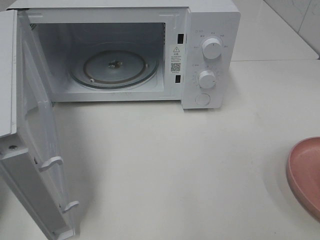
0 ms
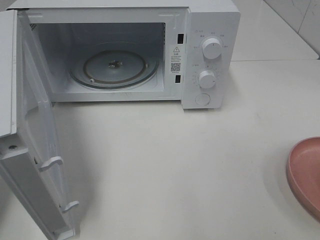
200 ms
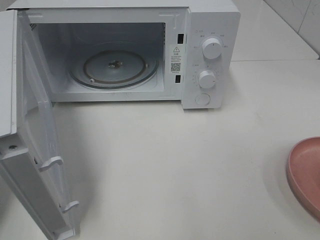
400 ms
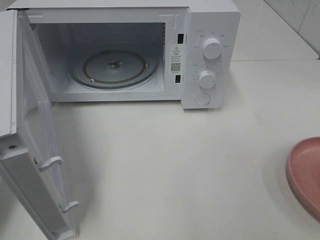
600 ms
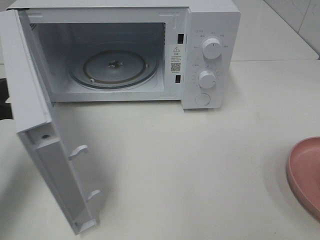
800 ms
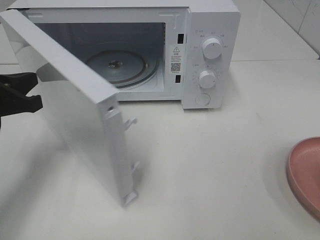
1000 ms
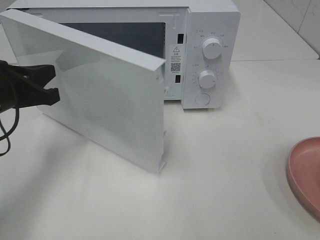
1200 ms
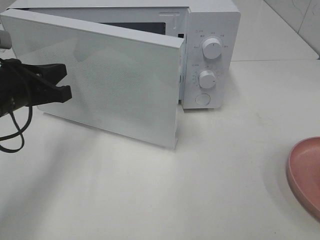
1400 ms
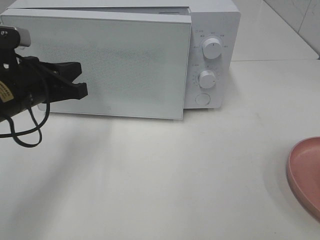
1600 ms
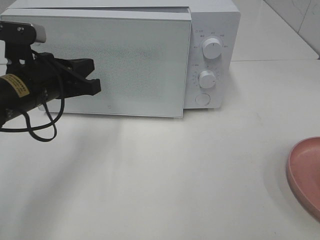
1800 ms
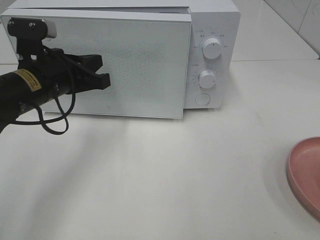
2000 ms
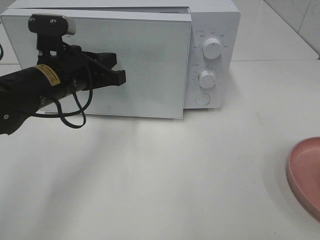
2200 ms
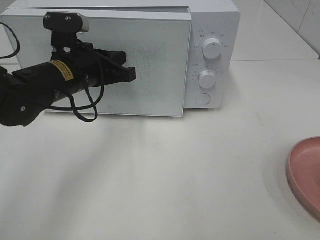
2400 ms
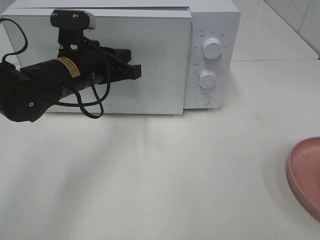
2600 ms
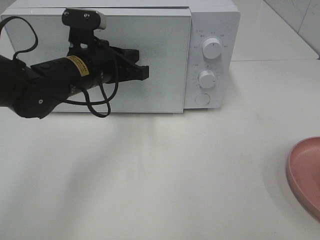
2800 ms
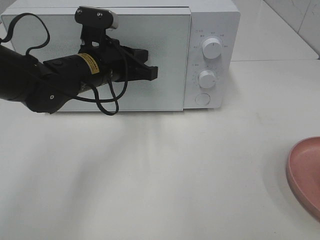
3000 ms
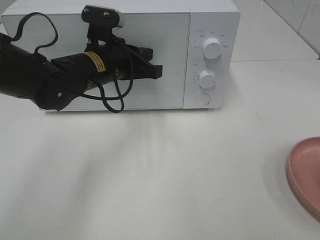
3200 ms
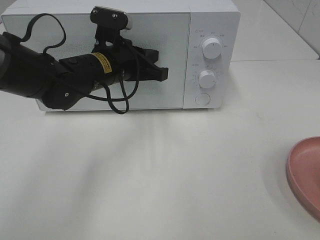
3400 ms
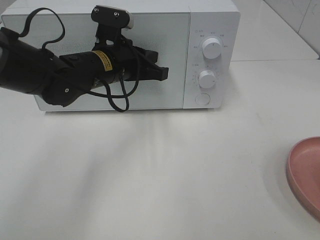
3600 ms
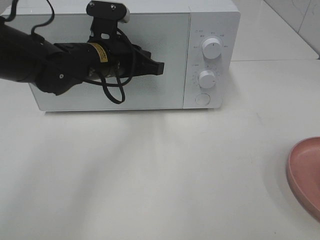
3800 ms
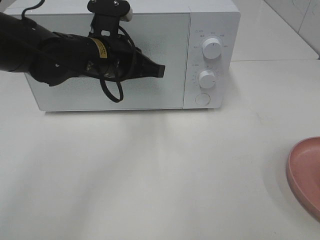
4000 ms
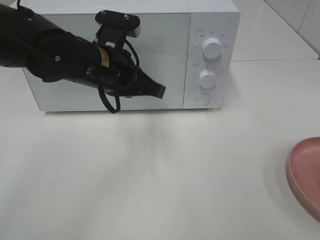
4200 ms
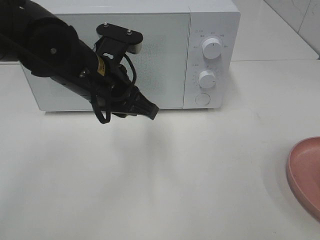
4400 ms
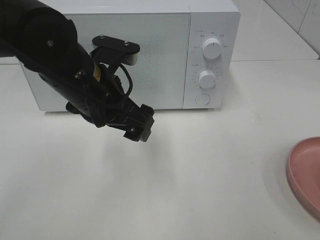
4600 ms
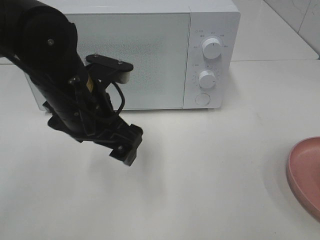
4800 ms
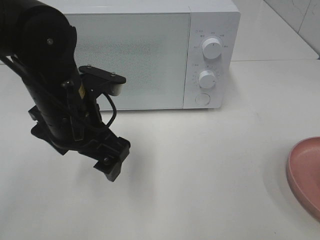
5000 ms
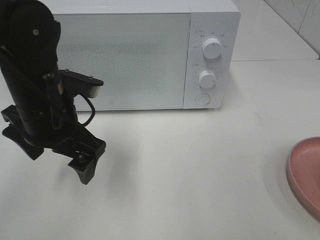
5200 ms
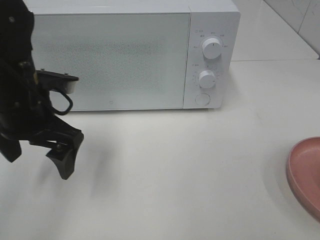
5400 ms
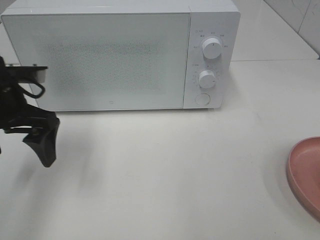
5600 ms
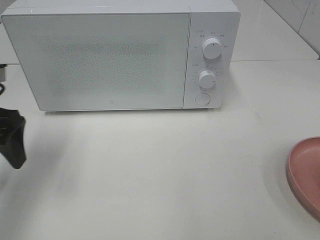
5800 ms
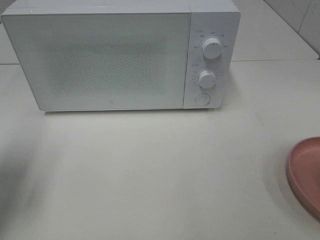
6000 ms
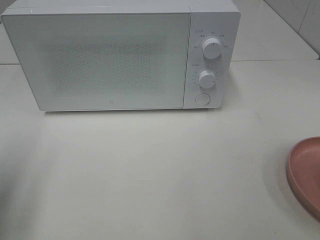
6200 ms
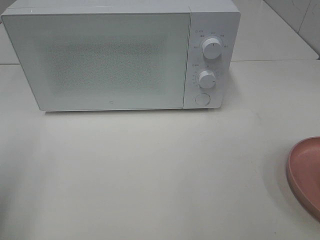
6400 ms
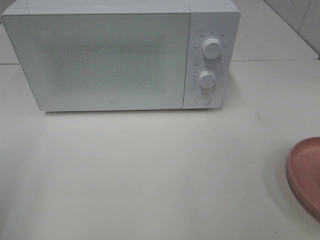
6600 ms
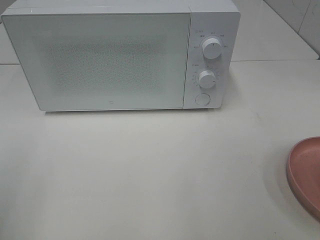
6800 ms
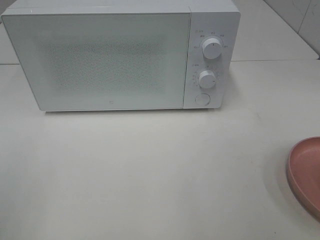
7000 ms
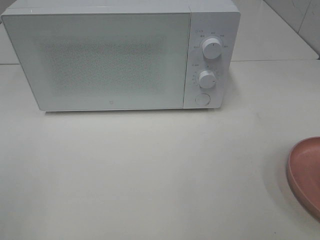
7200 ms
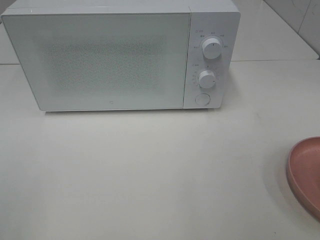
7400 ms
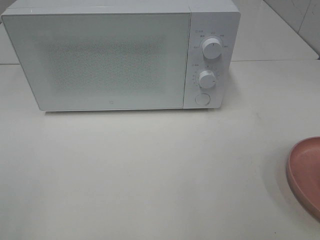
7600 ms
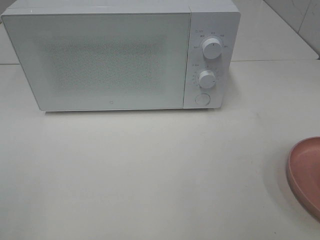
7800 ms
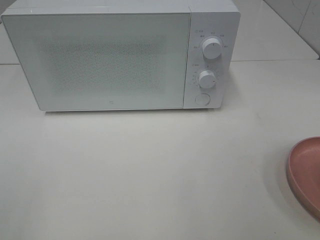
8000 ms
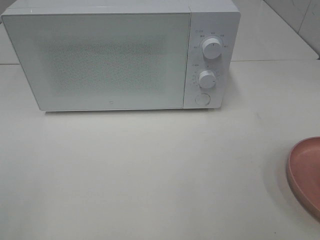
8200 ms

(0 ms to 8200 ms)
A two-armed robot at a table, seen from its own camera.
Task of the whole recording: Heat the burger.
Step, 0 ms - 3800 ms: Left hand: close the microwave door.
0 ms - 1600 ms: The left gripper moves to the right and forward, approximately 15 cm.
1600 ms - 3200 ms: The left gripper moves to the right and forward, about 15 cm.
3200 ms - 5000 ms: The left gripper heads backward, covering about 10 cm, and opens.
5000 ms - 6600 ms: The left gripper heads to the left and backward, covering some 25 cm.

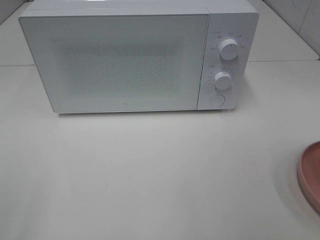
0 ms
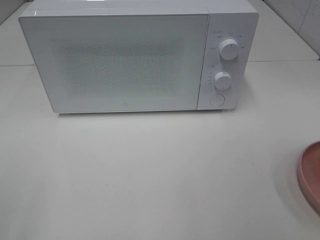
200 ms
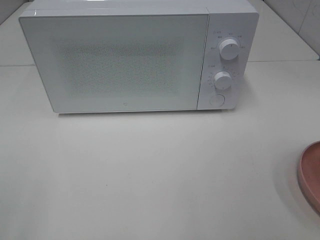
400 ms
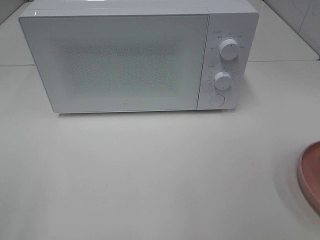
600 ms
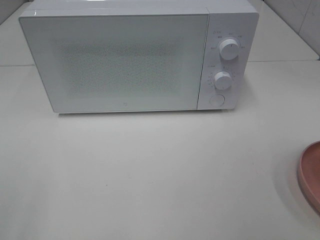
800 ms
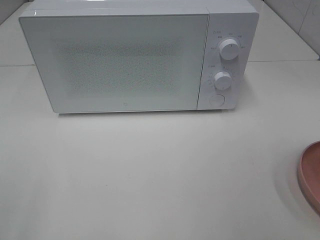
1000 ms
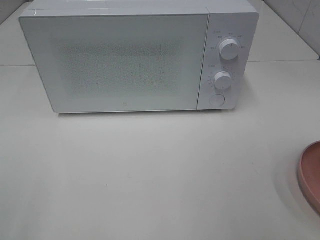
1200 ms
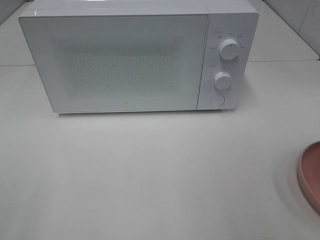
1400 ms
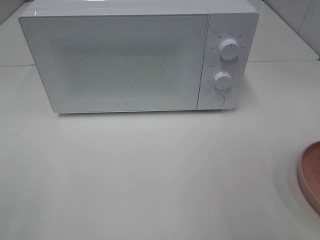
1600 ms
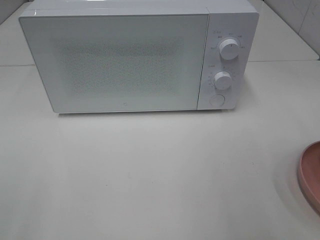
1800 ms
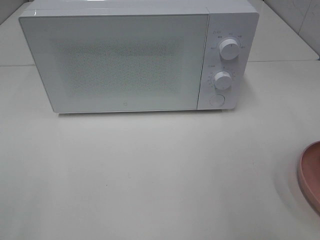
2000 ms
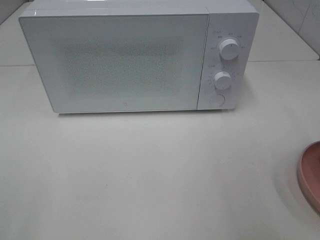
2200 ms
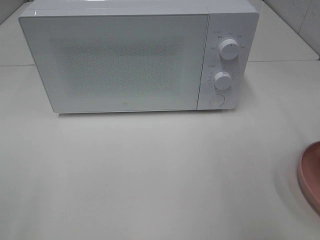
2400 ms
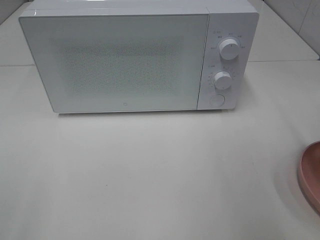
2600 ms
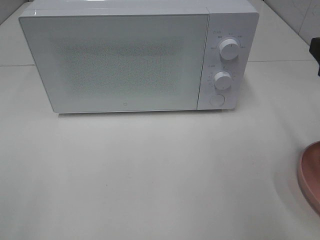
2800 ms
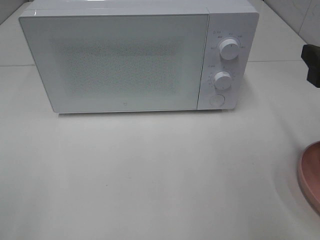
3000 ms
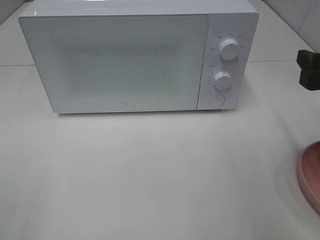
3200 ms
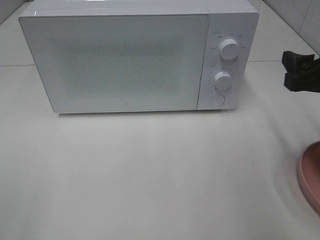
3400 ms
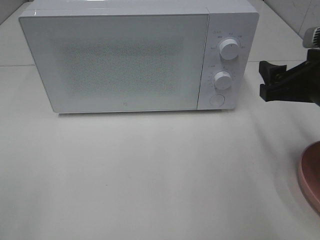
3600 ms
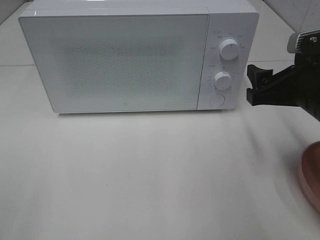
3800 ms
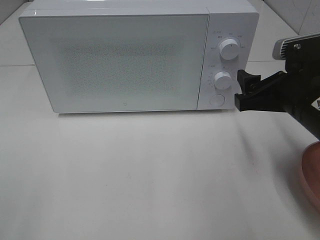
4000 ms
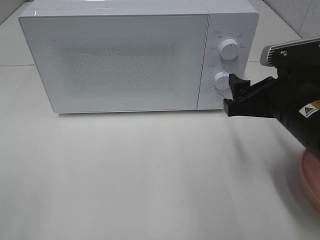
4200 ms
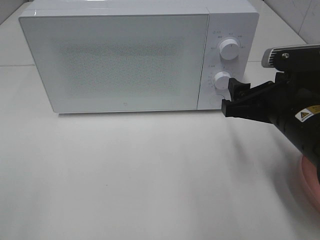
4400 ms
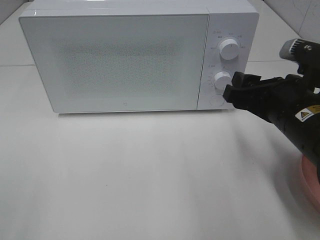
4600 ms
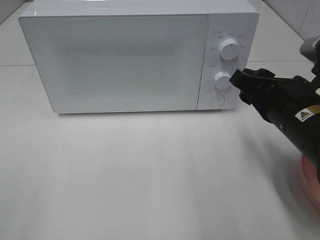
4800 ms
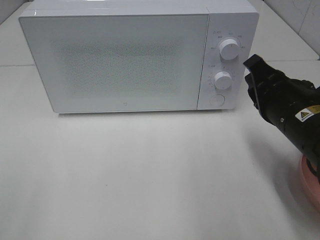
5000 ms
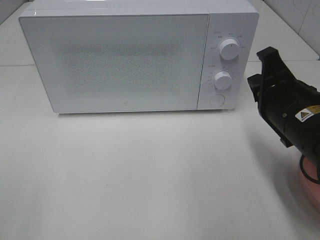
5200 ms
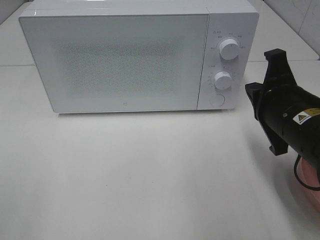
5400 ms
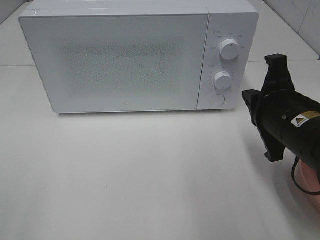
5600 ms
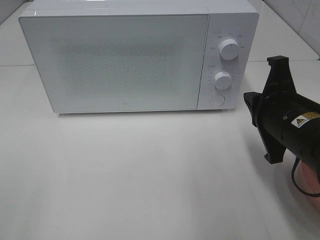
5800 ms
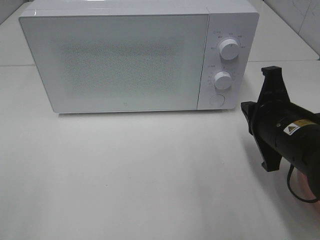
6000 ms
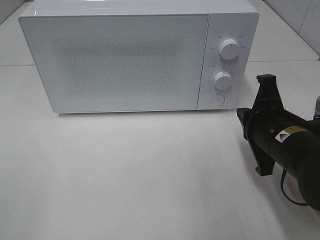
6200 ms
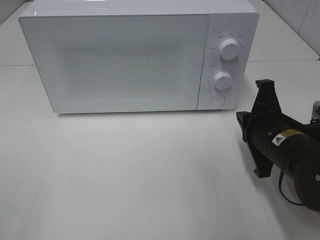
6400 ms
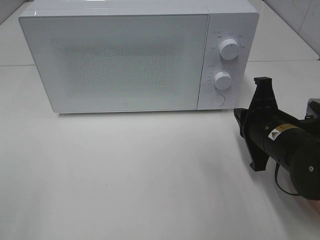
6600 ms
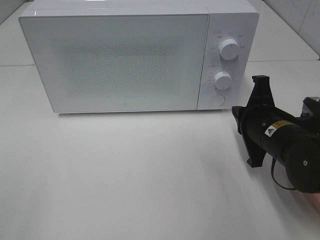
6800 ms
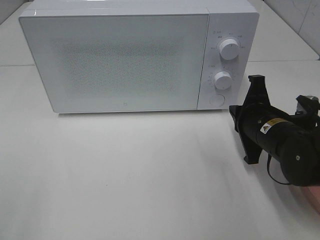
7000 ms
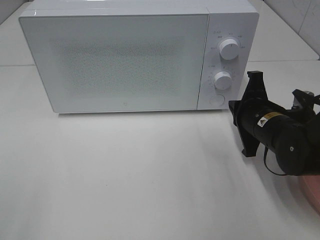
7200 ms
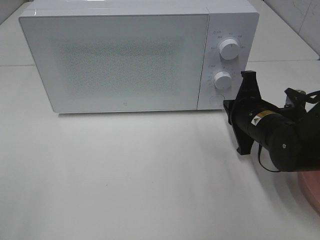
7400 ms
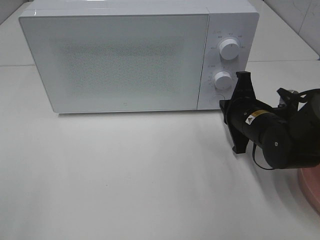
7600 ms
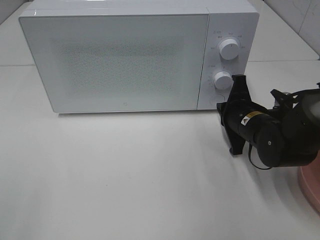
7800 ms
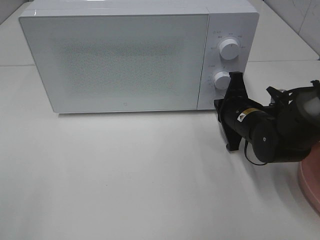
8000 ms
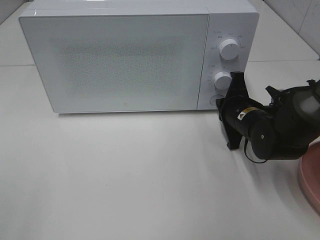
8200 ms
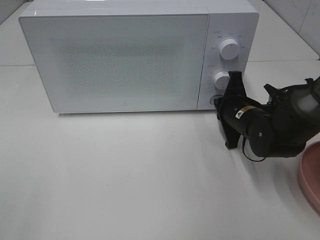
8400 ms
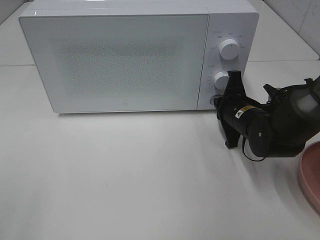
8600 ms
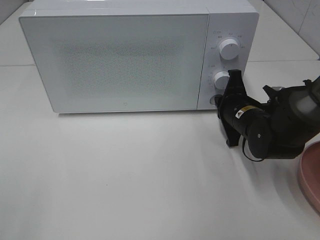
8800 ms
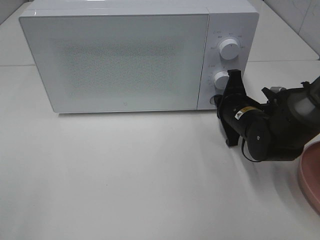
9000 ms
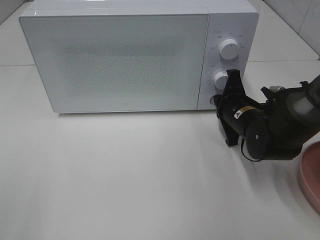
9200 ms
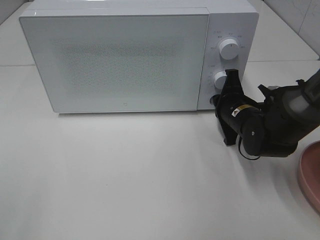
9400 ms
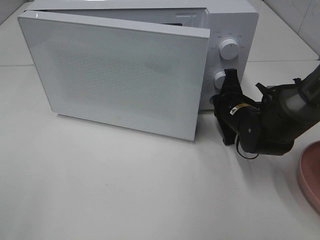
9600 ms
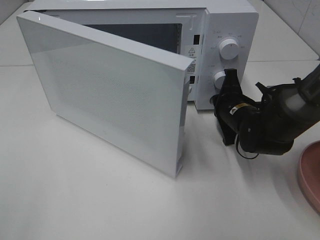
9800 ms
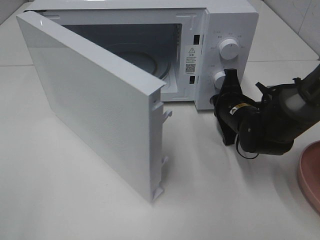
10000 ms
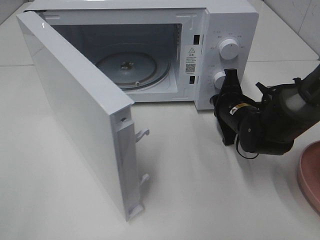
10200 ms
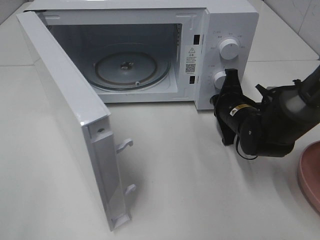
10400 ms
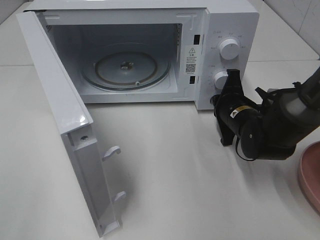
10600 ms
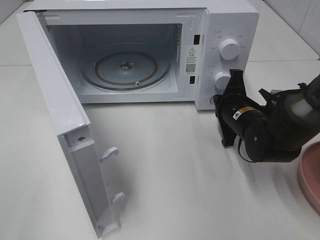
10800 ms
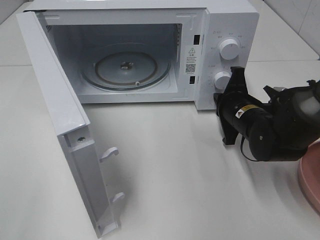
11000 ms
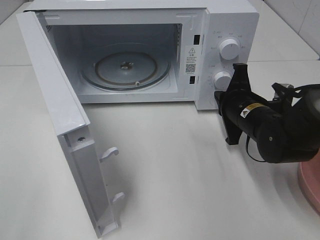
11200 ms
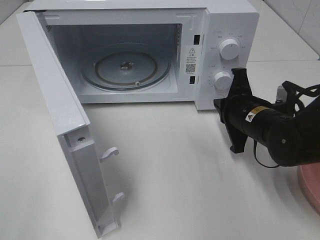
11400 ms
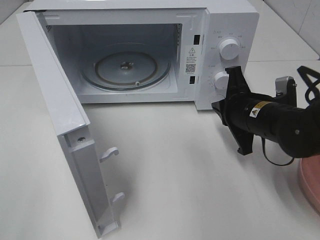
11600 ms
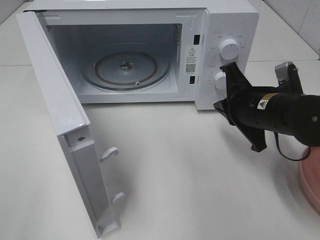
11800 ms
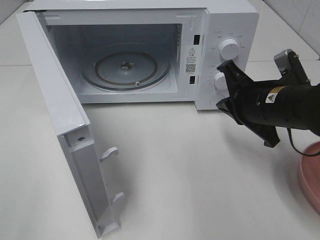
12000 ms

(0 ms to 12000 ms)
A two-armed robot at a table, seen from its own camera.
Task of the whole recording: Heat the burger.
Step, 0 ms - 11000 ms: Right hand: press the switch.
1600 ms - 3000 ms: The right gripper goes roughly 15 cm forward and downward.
3000 ms - 4400 ms: The right gripper heads to the left and downward, covering about 10 cm.
4400 ms - 6000 ms: The right gripper closes its fingers.
6000 ms - 7600 ms: The right gripper heads forward and downward, covering roughly 10 cm.
7600 ms - 9000 ms: The grippers stay close to where they were, moving slightly.
10400 ms - 12000 ms: The right gripper shifts some 10 cm upward and backward.

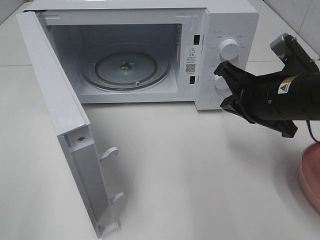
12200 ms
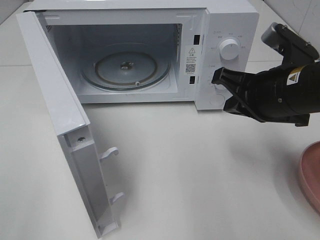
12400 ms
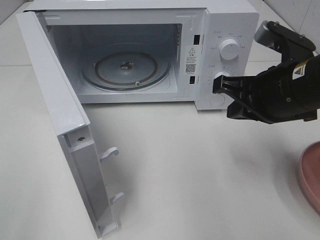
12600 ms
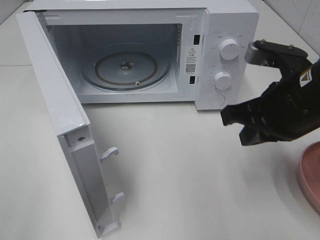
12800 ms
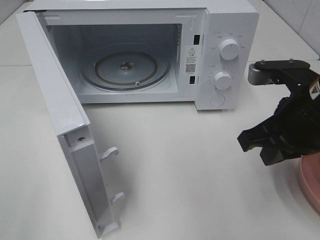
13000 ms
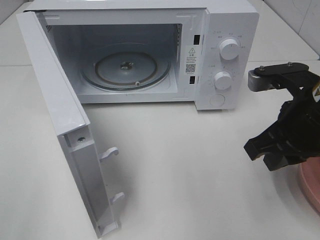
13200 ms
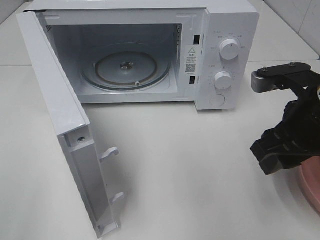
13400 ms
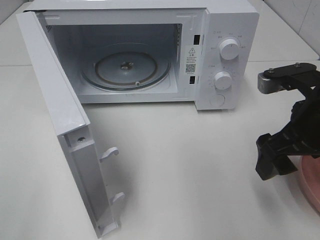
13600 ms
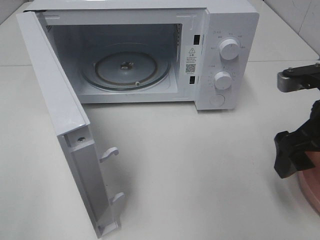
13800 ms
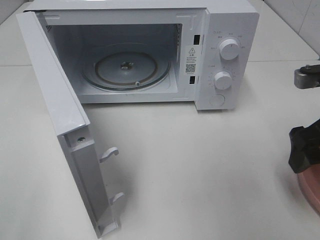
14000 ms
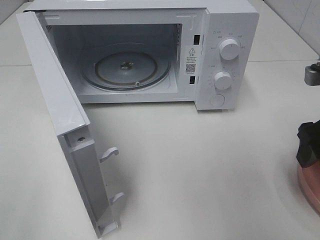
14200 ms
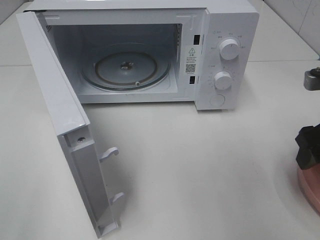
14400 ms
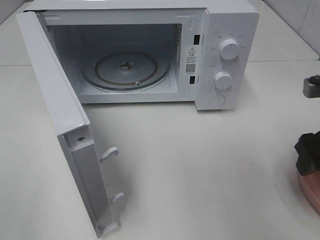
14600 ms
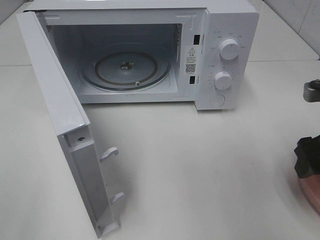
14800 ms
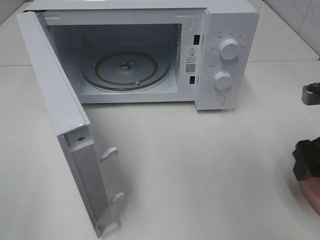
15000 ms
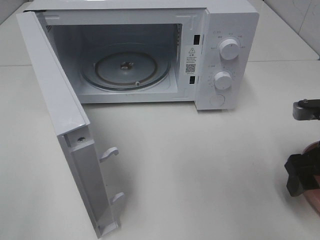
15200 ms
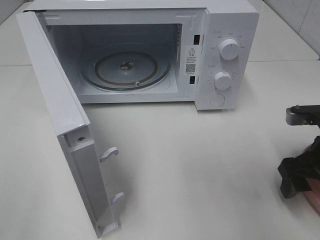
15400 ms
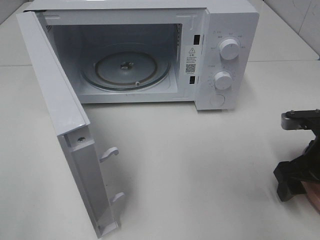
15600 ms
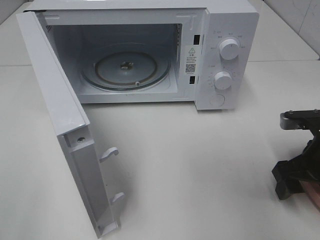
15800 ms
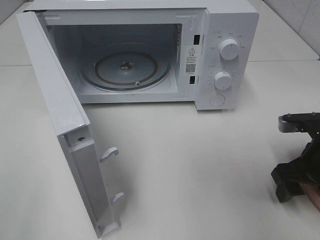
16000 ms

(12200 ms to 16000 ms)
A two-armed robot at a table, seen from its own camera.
Task of the whole recording: Heat the burger.
12200 ms - 13400 ms: The right gripper ends up some 5 cm from where it was, and opens.
13400 ms - 14800 ms: The right gripper goes roughly 10 cm to the right.
14800 ms - 16000 ms: The right gripper moves downward, approximately 5 cm.
